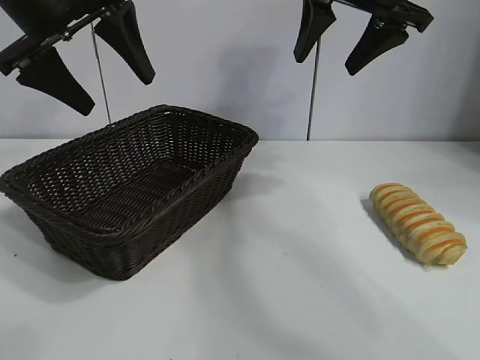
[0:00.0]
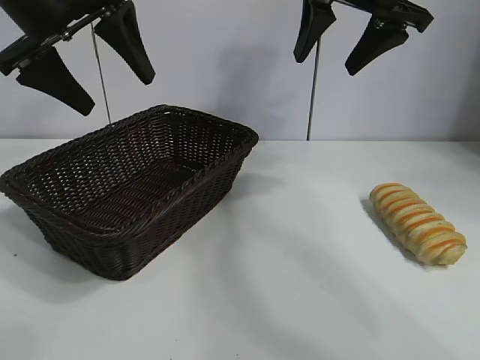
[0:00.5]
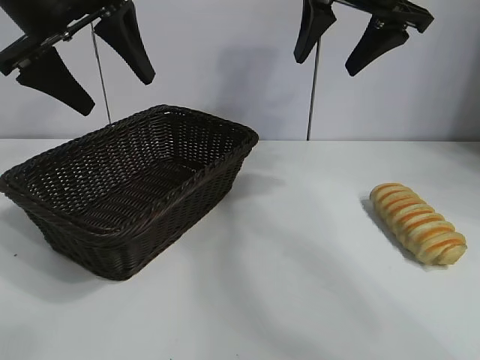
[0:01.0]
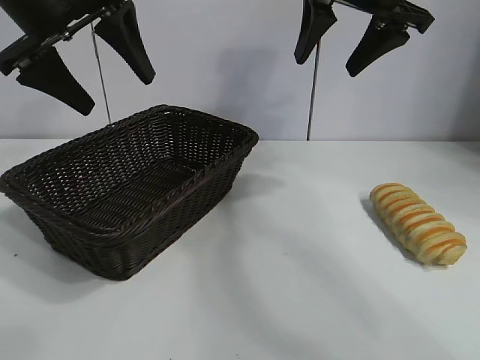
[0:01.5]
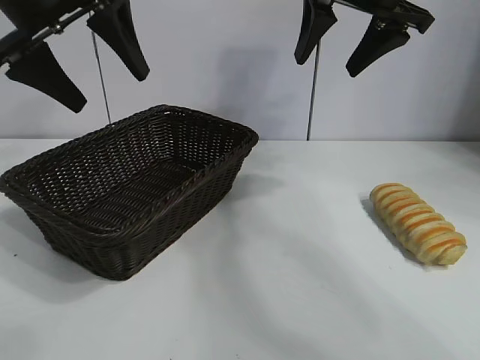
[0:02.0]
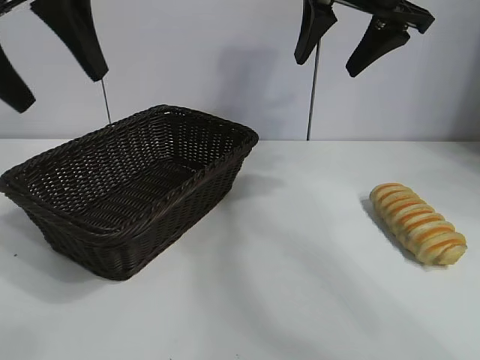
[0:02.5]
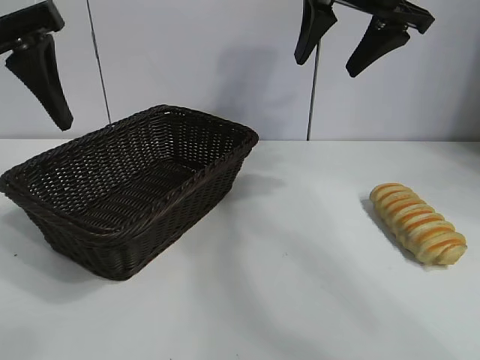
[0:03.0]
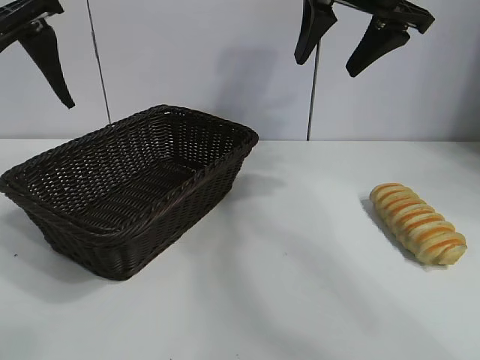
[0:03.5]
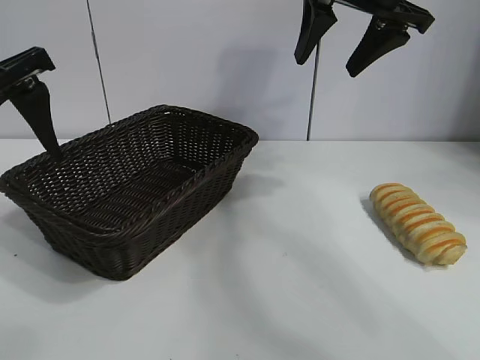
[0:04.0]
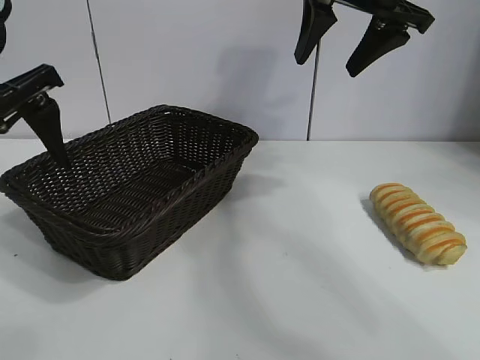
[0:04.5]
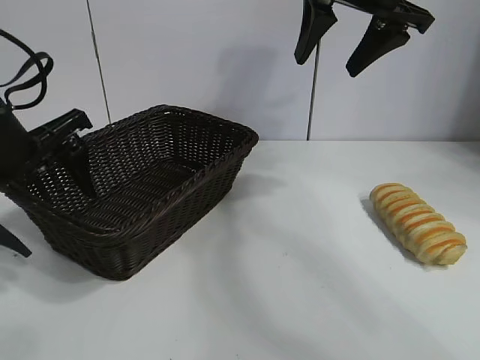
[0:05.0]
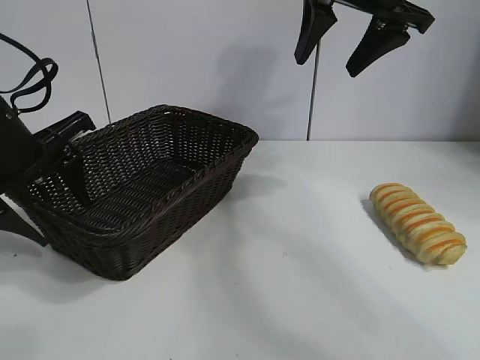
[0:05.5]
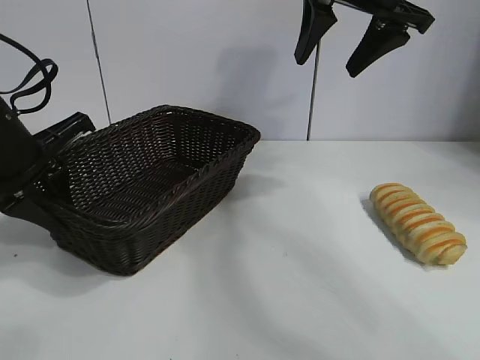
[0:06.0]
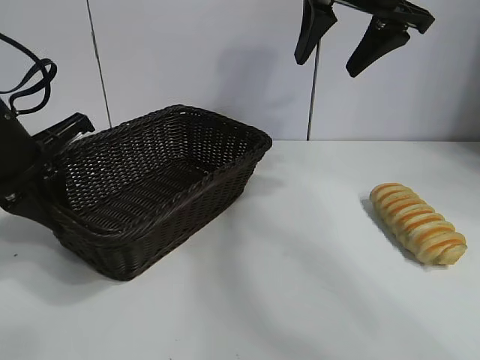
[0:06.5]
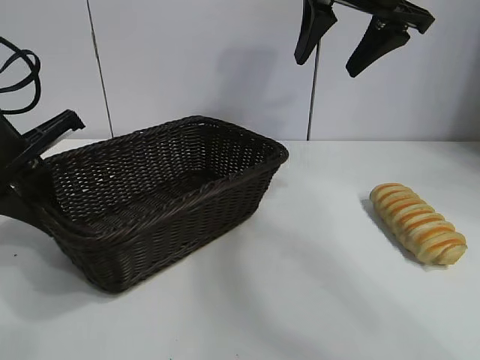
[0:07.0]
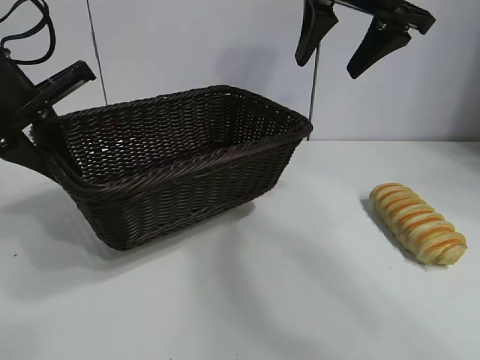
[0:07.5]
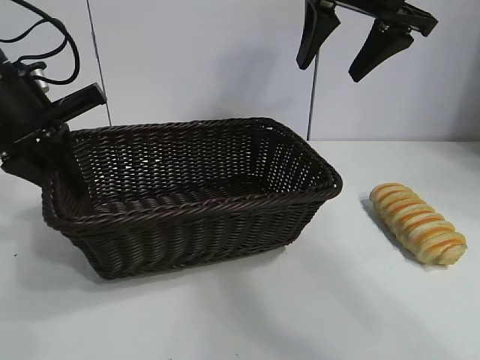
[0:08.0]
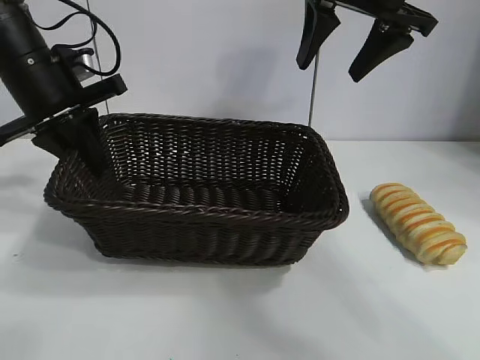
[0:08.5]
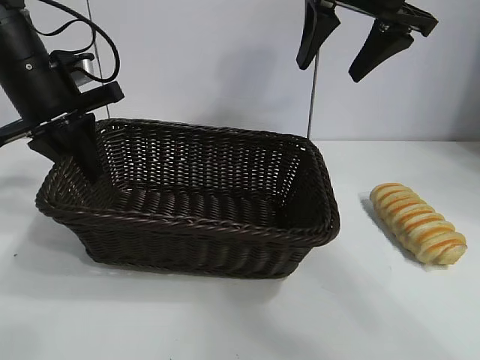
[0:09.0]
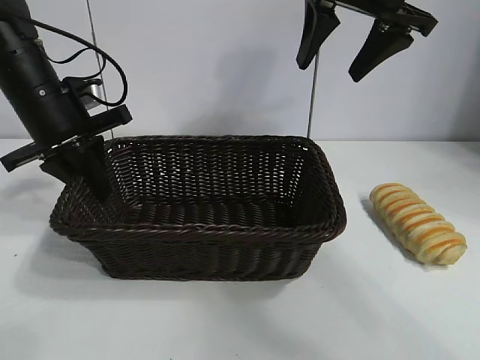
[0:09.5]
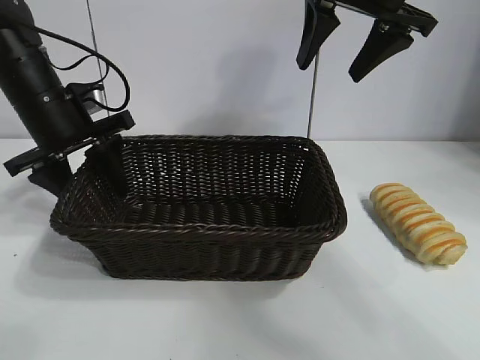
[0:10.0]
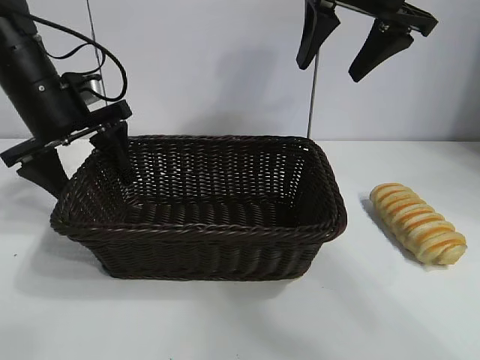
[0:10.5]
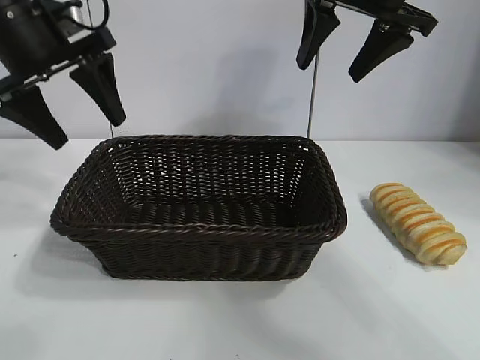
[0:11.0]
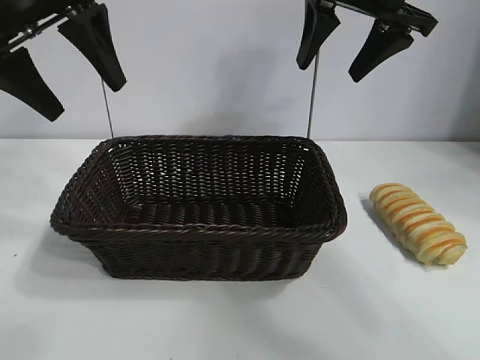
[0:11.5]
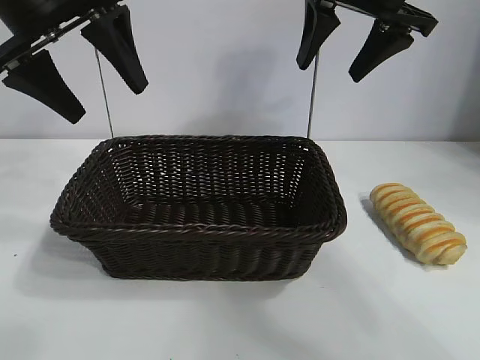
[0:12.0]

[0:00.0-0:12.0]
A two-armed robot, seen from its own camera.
Task of the whole recording: pick up the long bread and put it into the basket.
Step, 0:02.0 to 0:06.0: Grasp the basket with the left gripper.
Step, 0:06.5 to 0:10.0: Place the basket in the center of the table with the left gripper.

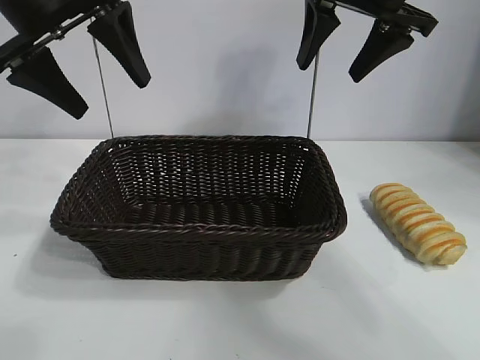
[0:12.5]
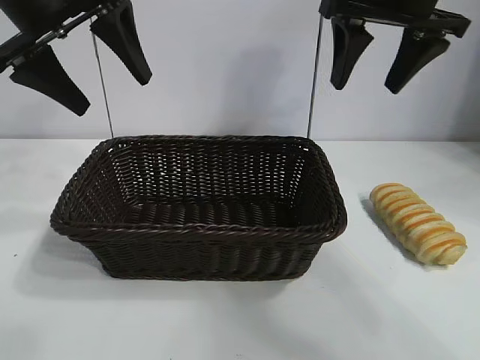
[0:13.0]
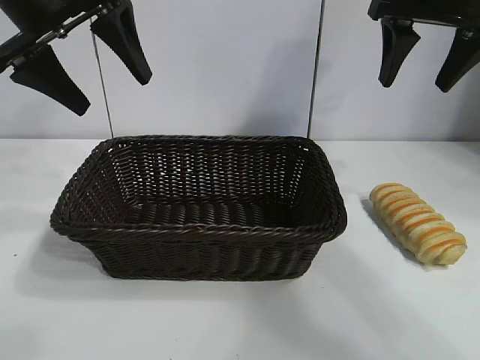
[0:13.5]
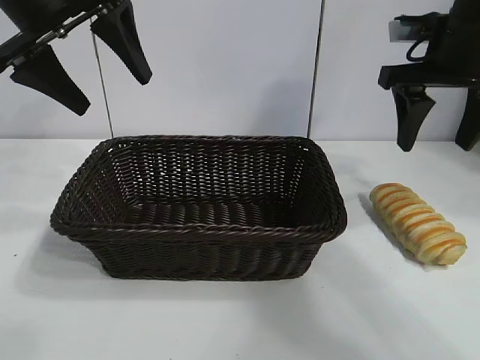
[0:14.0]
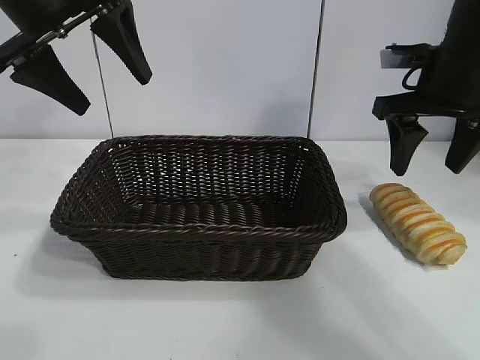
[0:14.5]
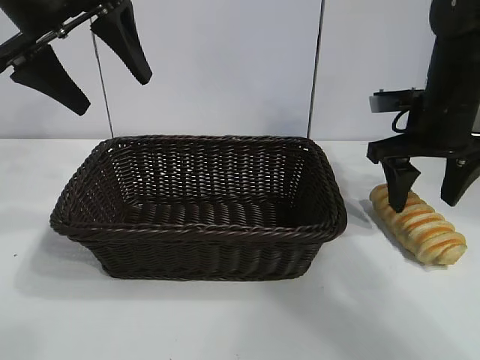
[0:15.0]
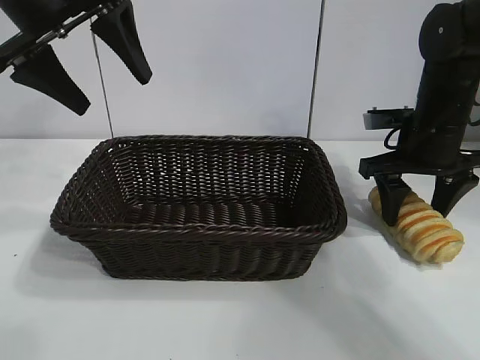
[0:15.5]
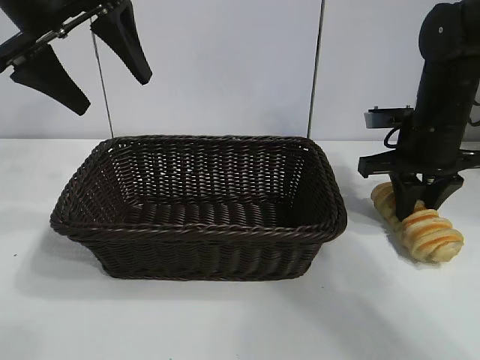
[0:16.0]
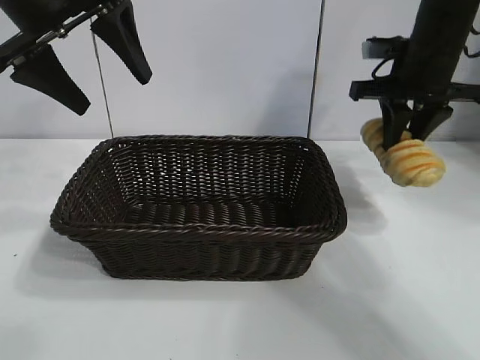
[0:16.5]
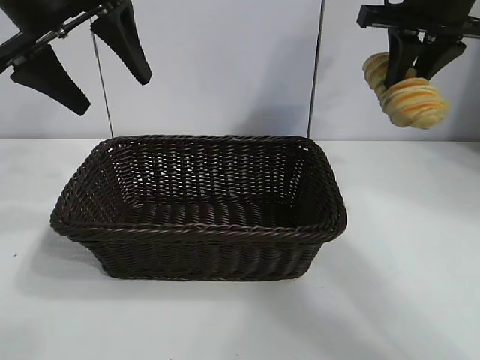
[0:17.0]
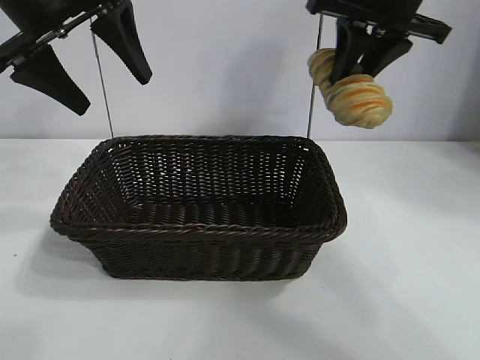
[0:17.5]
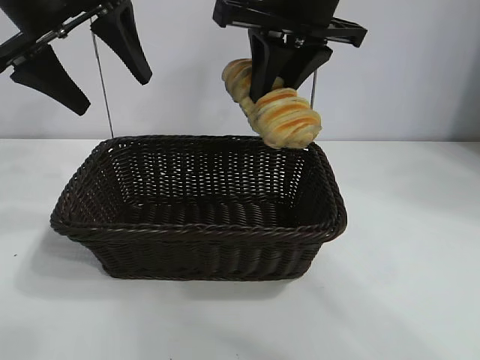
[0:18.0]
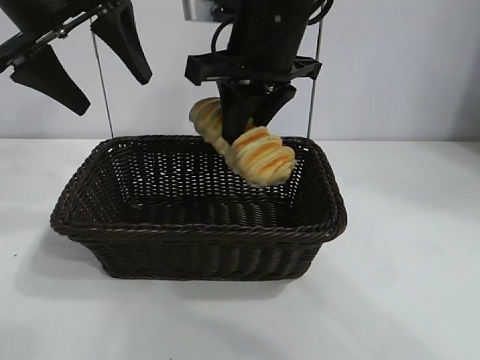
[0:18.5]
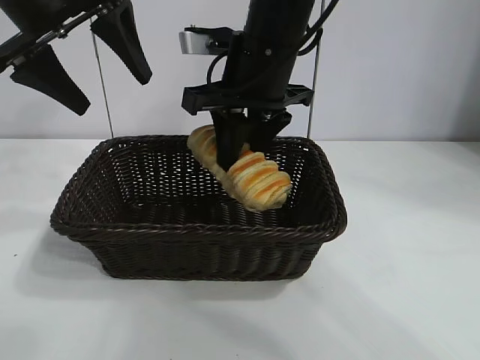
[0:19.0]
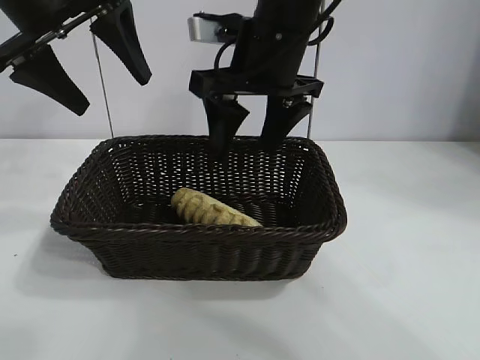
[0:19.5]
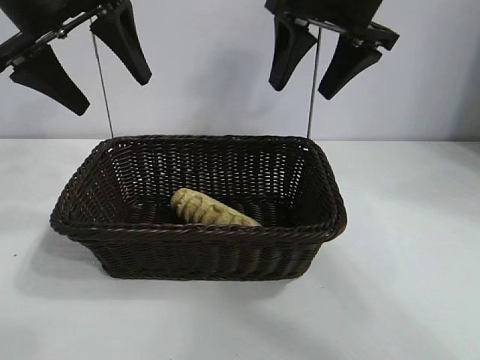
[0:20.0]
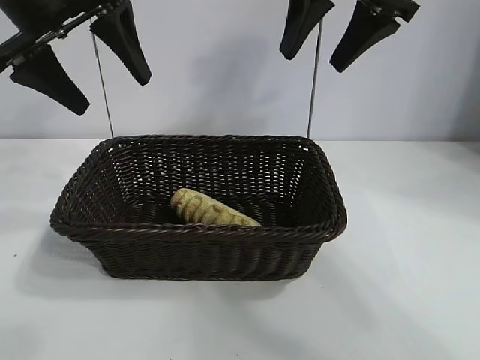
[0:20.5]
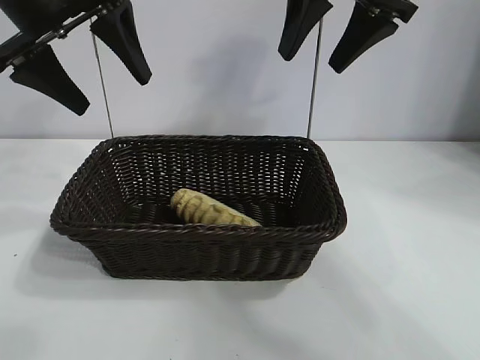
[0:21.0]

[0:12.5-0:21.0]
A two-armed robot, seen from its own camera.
Task of the whole recording: pick up the long bread and put it into the basket.
Step, 0:12.5 to 0:15.5: Grasp the long bread with right gripper.
Step, 0:16.5 to 0:19.0: Place the long bread in the basket with right gripper.
